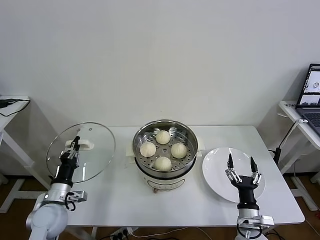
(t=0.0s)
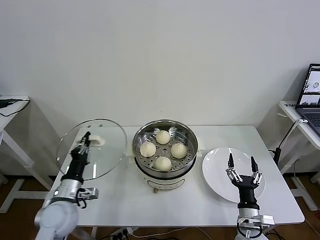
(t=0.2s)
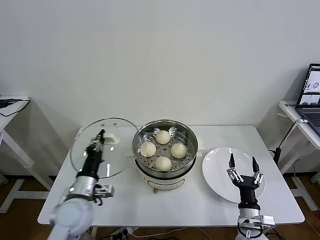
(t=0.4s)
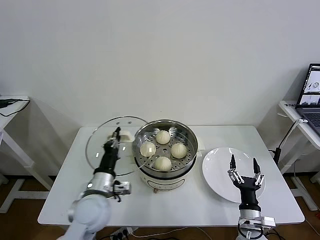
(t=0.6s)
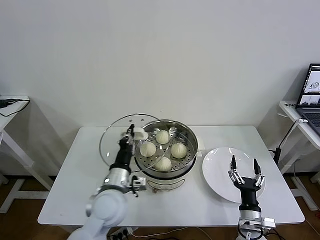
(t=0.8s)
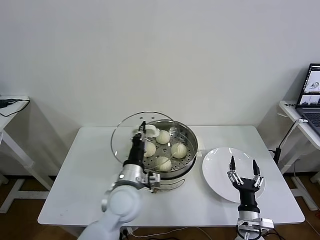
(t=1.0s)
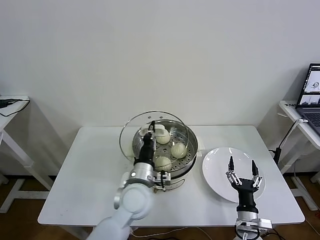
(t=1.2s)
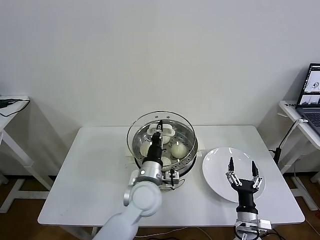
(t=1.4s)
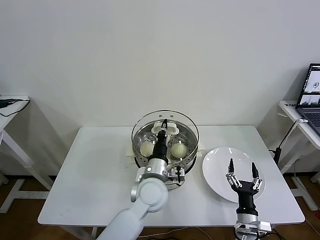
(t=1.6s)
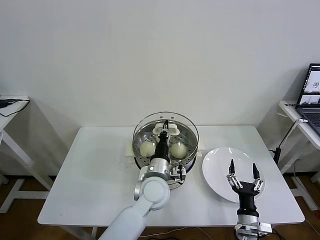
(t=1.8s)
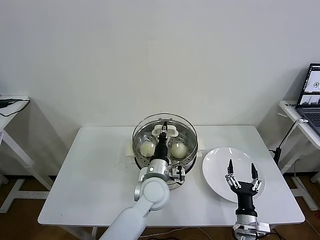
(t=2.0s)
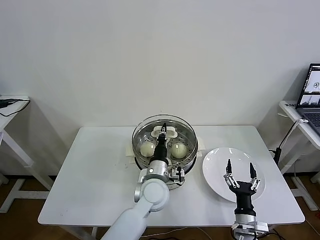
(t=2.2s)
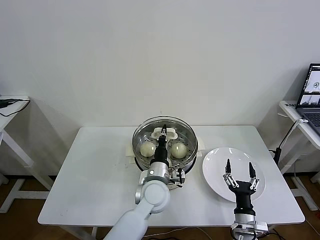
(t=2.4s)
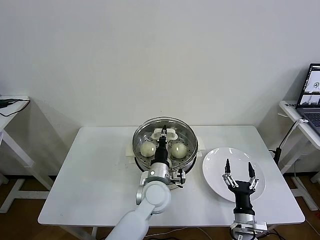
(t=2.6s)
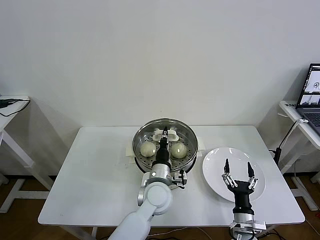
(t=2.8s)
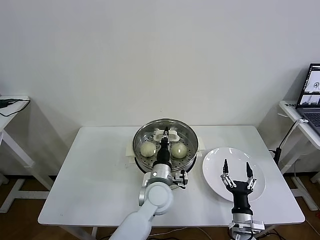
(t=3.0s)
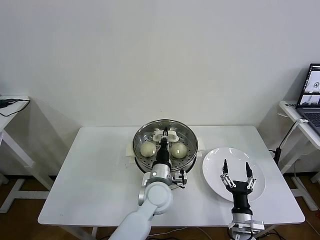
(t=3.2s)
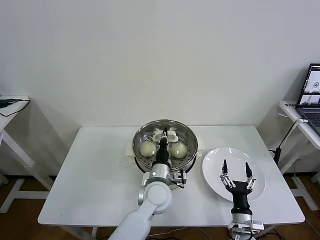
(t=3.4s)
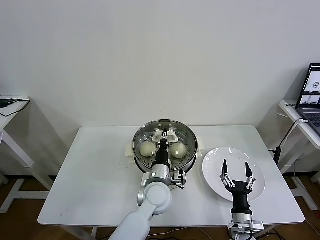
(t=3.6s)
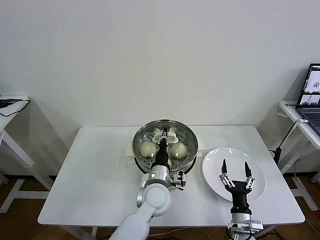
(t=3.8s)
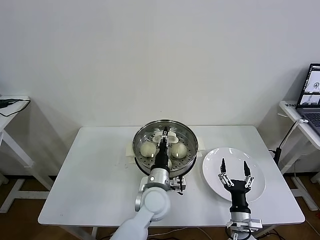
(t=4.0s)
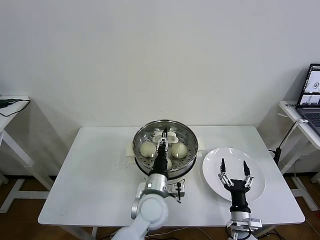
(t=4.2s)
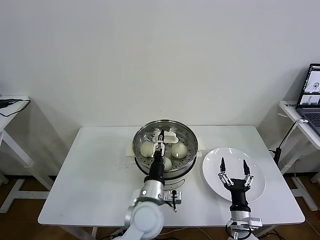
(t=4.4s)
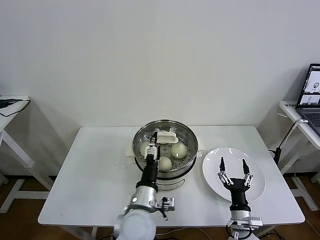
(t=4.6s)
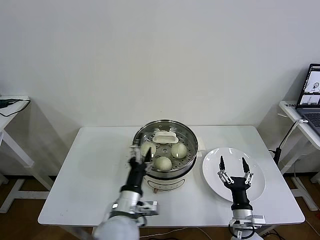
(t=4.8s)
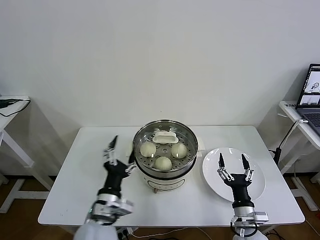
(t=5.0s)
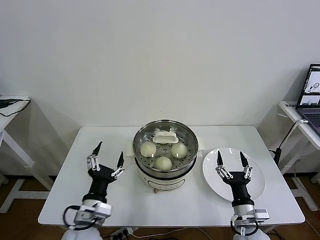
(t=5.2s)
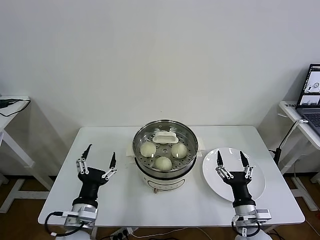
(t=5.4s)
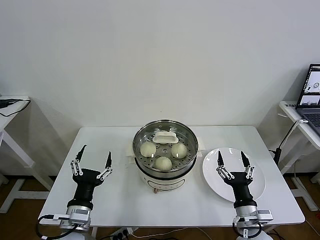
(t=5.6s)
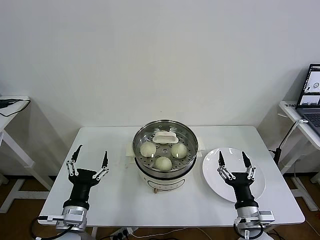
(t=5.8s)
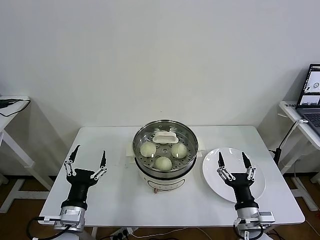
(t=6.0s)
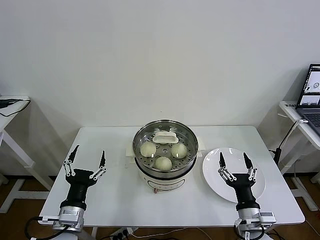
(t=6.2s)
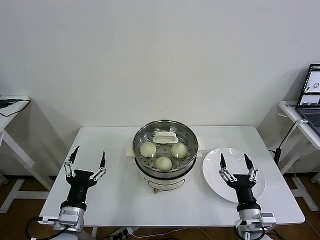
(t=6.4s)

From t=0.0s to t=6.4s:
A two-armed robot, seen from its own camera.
Task of the whole recording: take steamed baozi put them in steamer then cover it.
Step, from t=0.0s to t=4.6s: Place the pot lid on the steamer with left gripper.
From t=0.0s to t=1.6s: The left gripper goes some 30 cm to the right.
From t=1.6s to t=3.2s: The grippers move only a little.
From t=3.2s to t=4.8s: The left gripper shifts some 15 cm backward and to the left, and opens its fingers.
From t=4.8s to t=6.4s: The left gripper moves to the left, some 15 cm; the right gripper goes approximately 10 cm upward.
